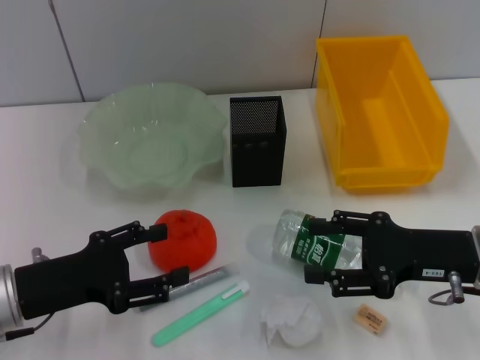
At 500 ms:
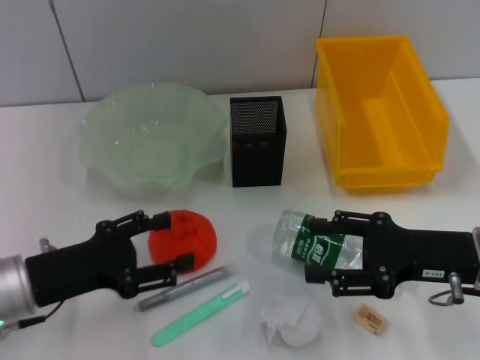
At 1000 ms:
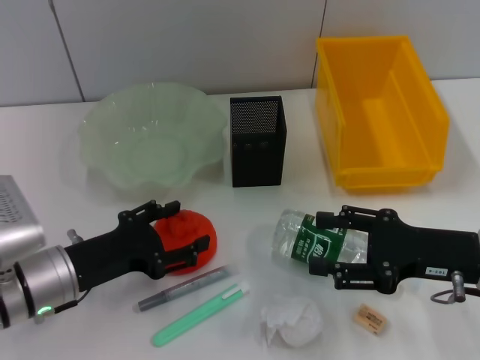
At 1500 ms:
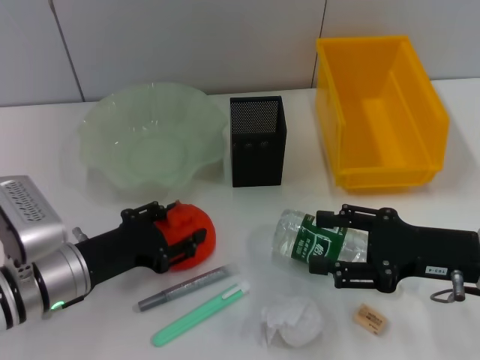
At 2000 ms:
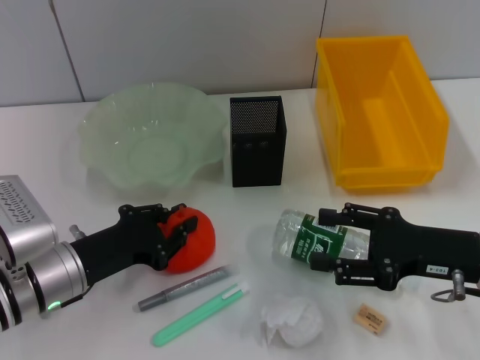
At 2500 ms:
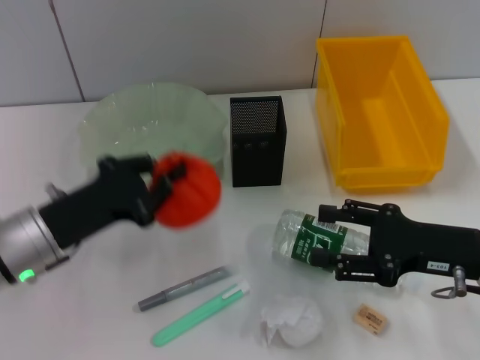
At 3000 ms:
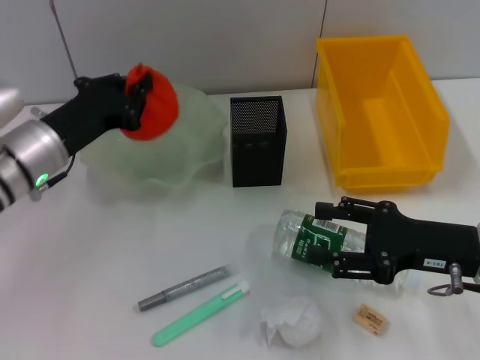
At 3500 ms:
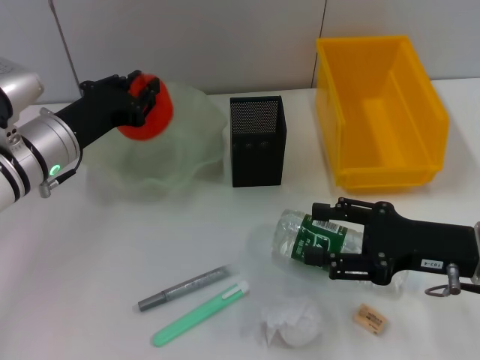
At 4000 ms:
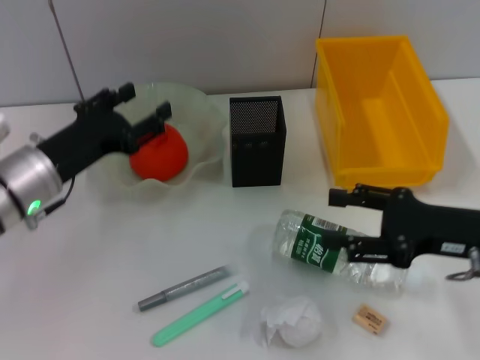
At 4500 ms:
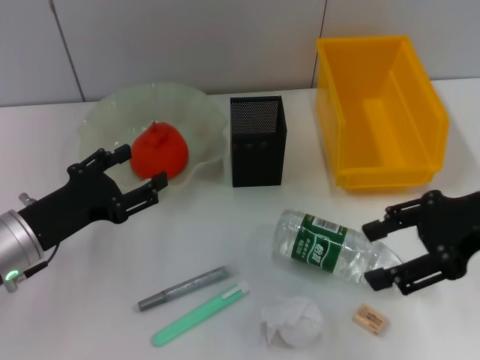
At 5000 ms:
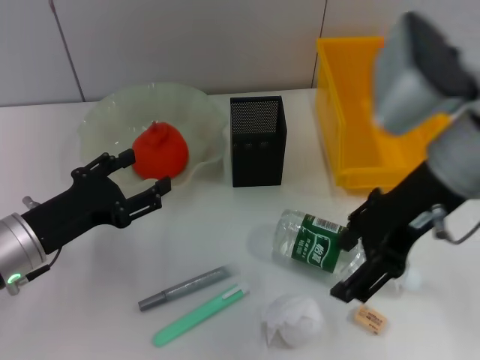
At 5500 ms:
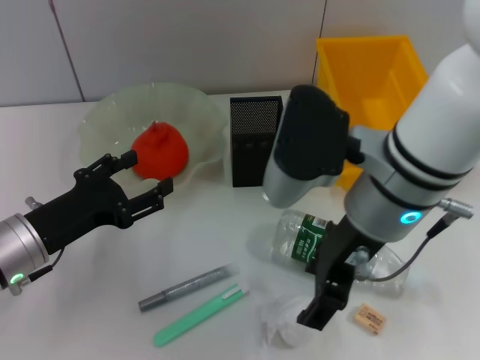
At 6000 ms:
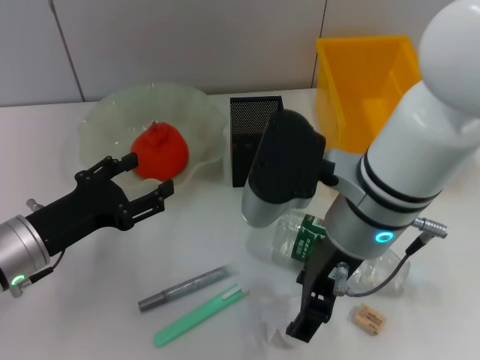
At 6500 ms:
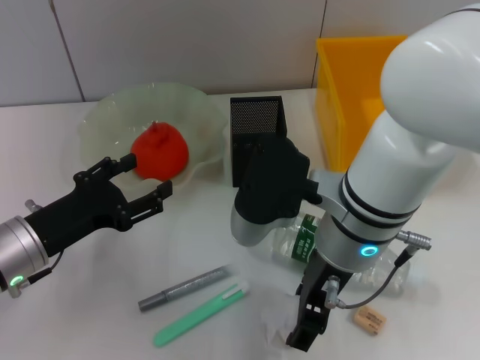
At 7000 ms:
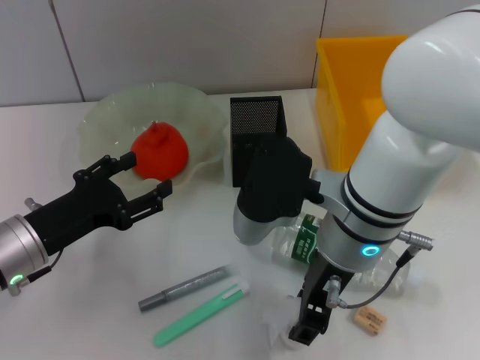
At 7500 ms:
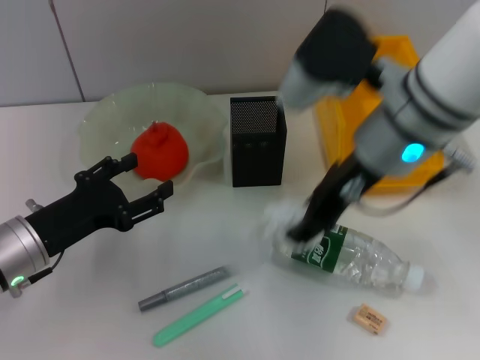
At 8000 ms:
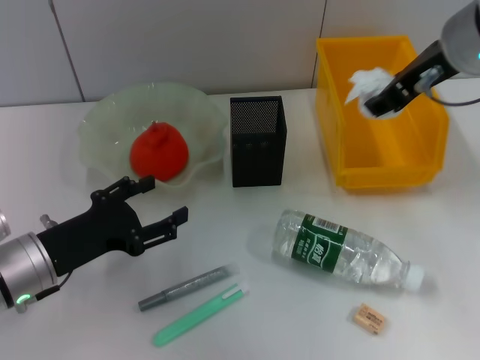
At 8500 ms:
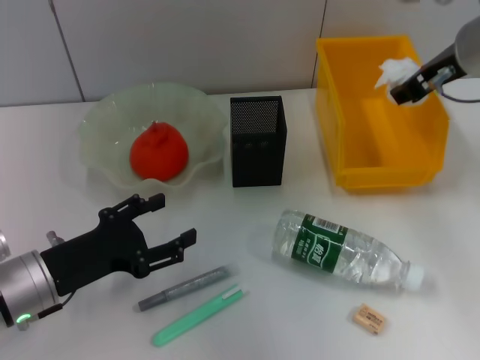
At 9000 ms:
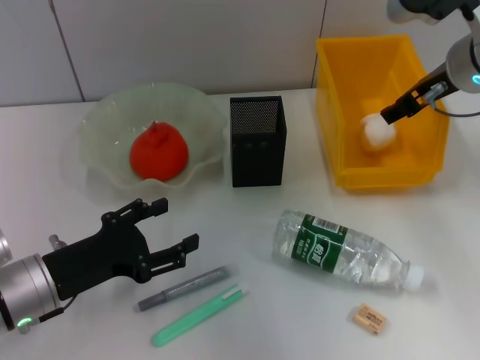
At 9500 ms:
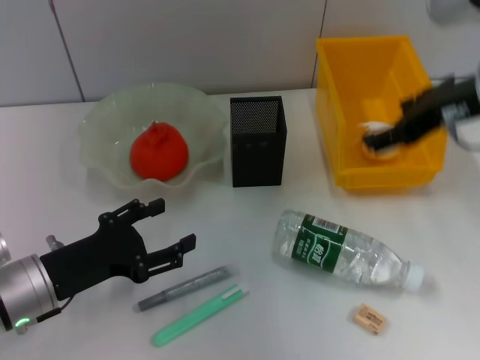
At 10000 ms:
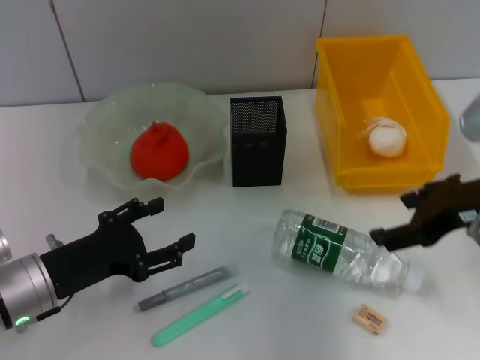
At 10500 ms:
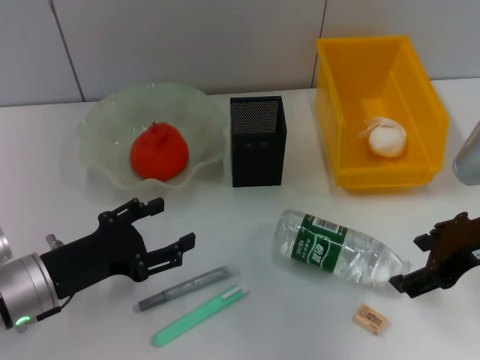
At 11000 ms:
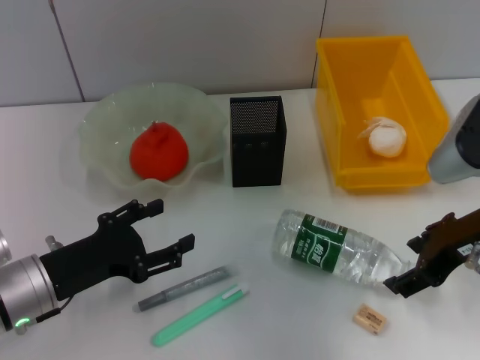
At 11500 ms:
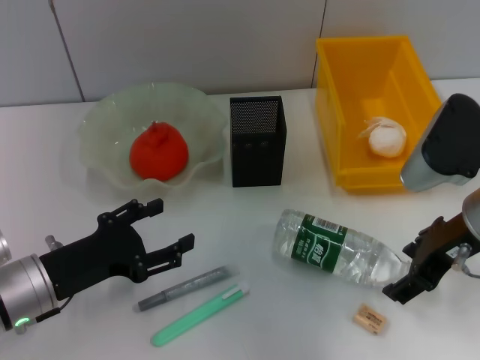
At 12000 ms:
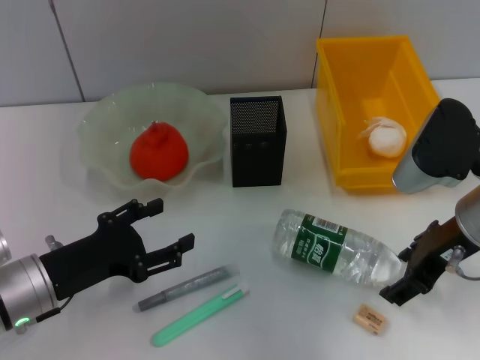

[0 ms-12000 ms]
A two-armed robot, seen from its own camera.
Step, 0 ms to 1500 ms: Grab the orange with the left hand.
Step, 2500 ms to 3500 ms: Place the orange into the fruit bowl with the left hand.
Step, 4000 ms to 6500 ms: Grab the paper ball with the right hand.
Step, 7000 ms to 8500 ms: Place the paper ball into the trash can with the right hand.
0 ms to 2000 ms: The left gripper moves approximately 5 cm, and closes up.
2000 ms to 4000 ms: The left gripper goes approximately 10 cm forward and upward.
4000 ms to 6000 ms: The right gripper moves to the left and upward, about 20 cm. The left gripper travels backward by about 5 cm, and opens.
6000 ms to 8000 ms: The right gripper shifts some 15 cm to the right, upward and forward.
8000 ms to 10000 ms: The right gripper is displaced backward and downward by approximately 15 cm, and opens up.
10000 ms to 12000 ms: The right gripper ends up approximately 5 cm from where it was.

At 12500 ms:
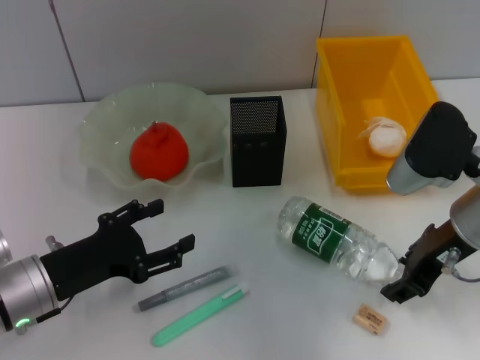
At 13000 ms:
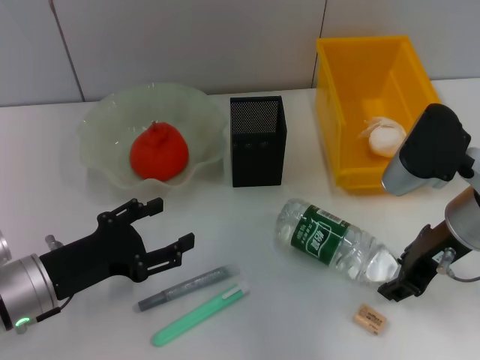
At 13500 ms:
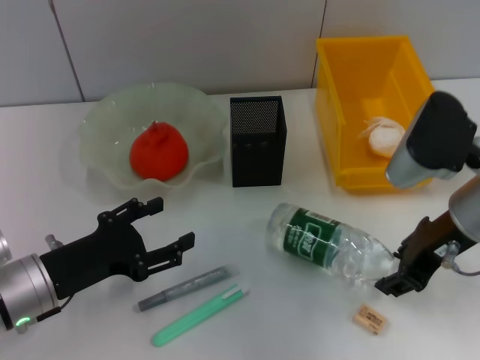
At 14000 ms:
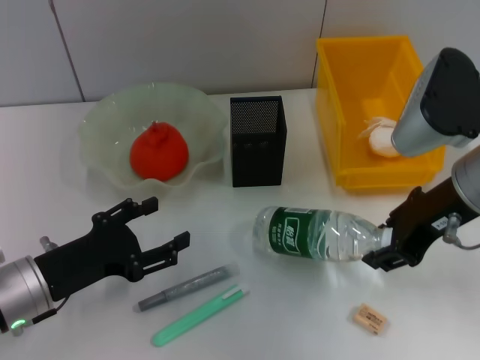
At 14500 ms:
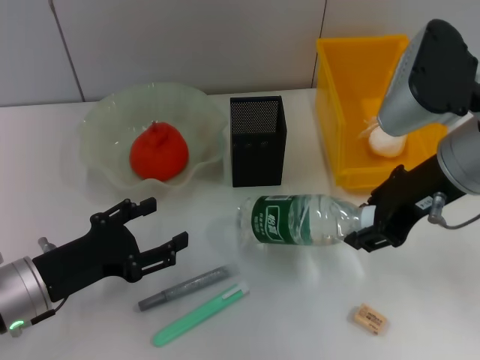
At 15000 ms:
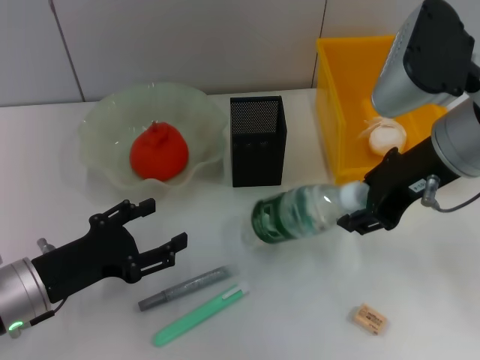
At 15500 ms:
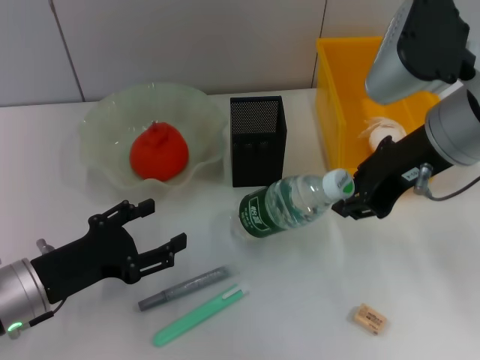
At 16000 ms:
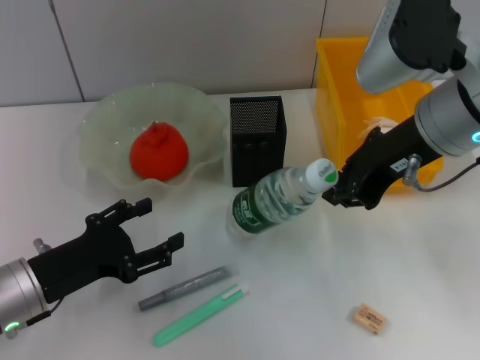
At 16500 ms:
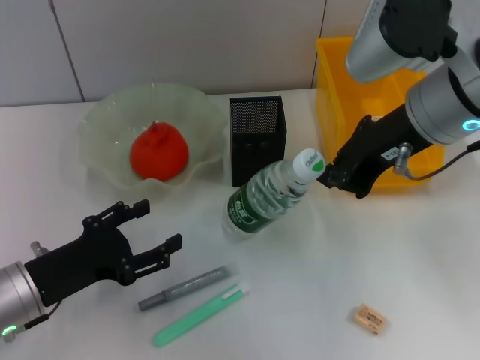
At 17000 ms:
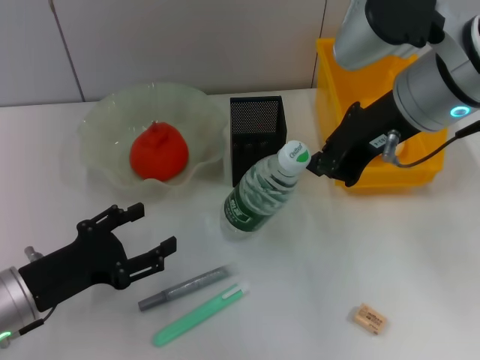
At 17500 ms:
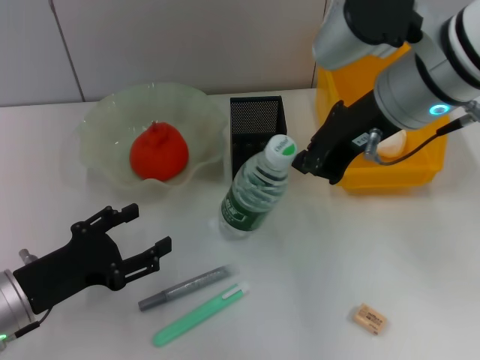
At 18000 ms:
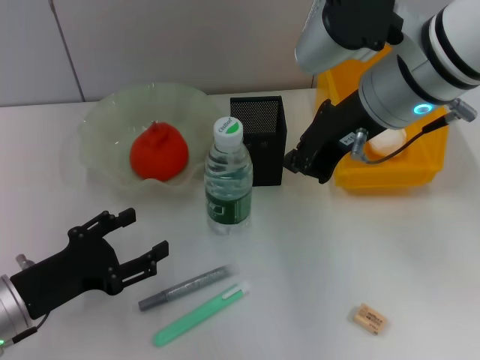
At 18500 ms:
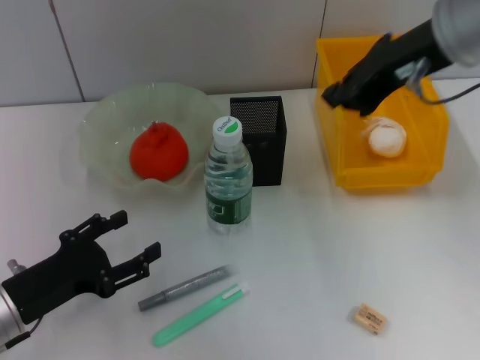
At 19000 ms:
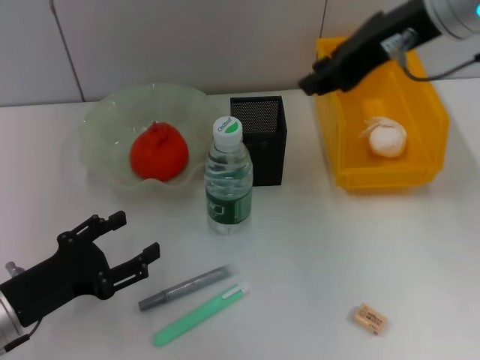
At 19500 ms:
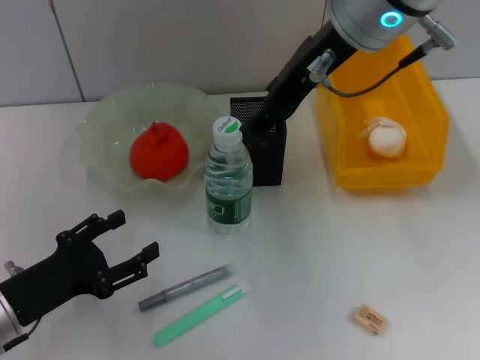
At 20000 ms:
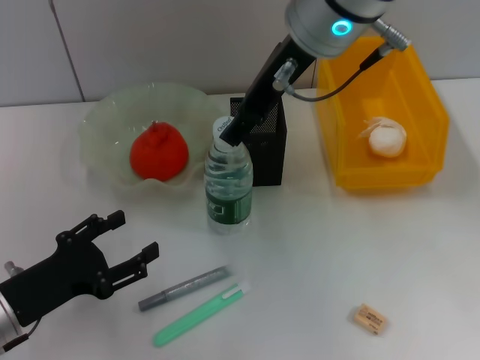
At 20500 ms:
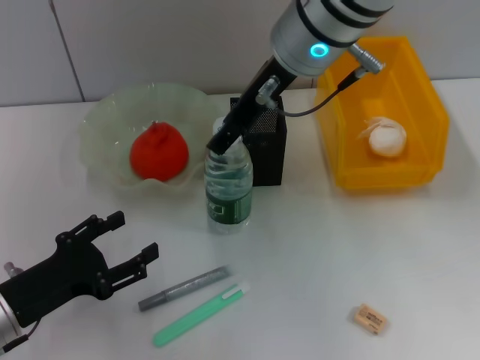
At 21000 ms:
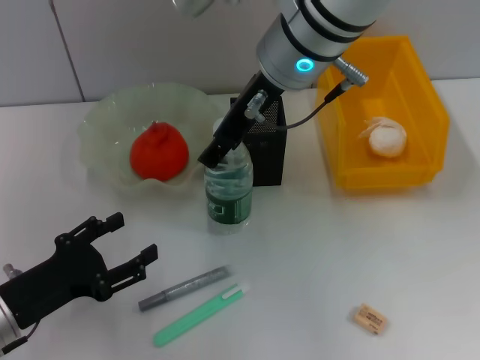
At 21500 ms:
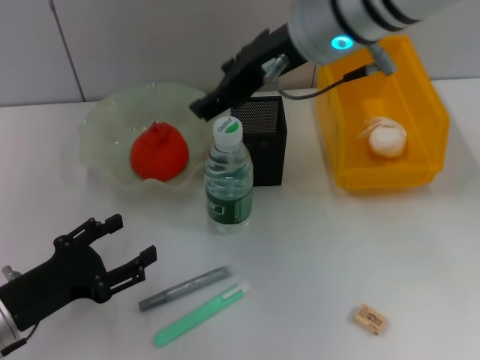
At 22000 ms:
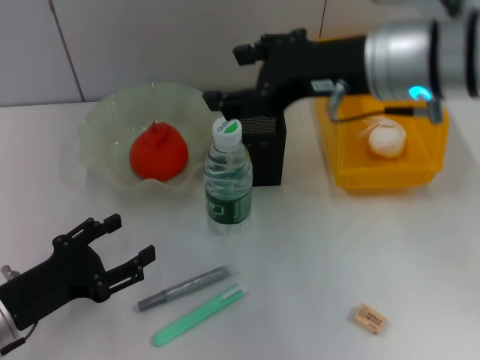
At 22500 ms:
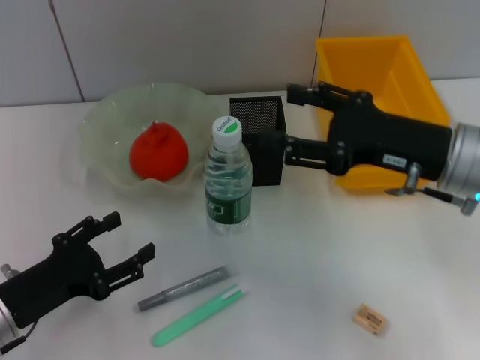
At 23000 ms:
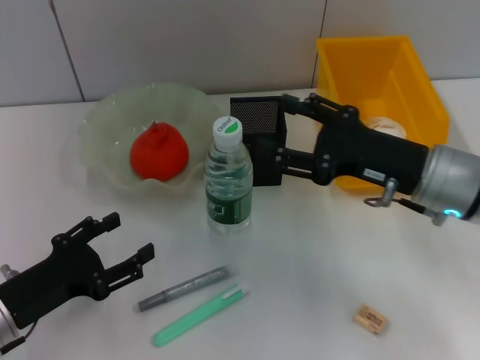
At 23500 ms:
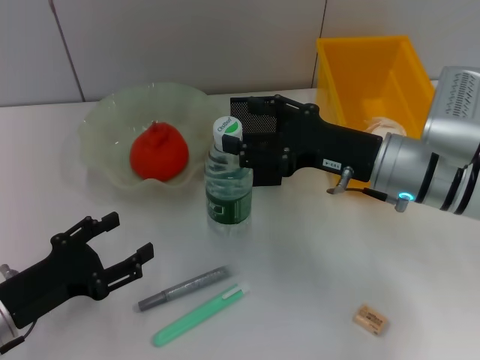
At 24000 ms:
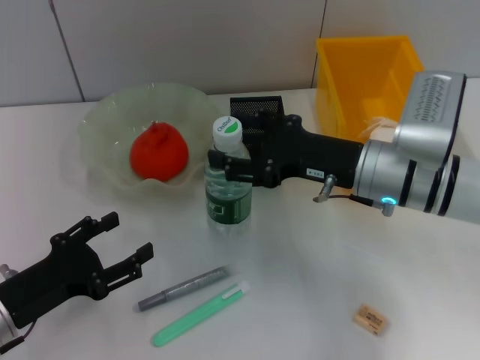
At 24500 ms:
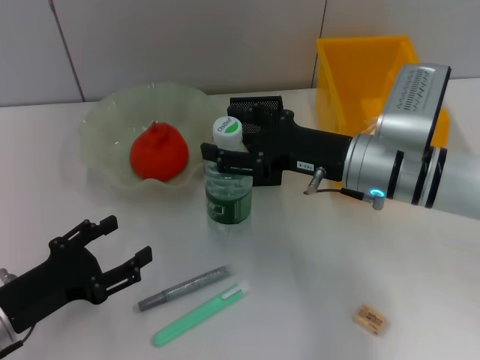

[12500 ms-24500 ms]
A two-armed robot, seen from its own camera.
12500 ms to 14500 ms: The right gripper moves upward, roughly 5 cm.
14500 ms to 16500 ms: The right gripper closes up.
16500 ms to 18500 ms: The right gripper moves upward, approximately 5 cm.
18500 ms to 20500 ms: The right gripper goes roughly 10 cm to the left, and opens.
20500 ms to 22500 ms: The right gripper moves to the right, downward and backward, roughly 20 cm.
22500 ms to 24500 ms: The right gripper moves to the left, forward and downward, approximately 10 cm.

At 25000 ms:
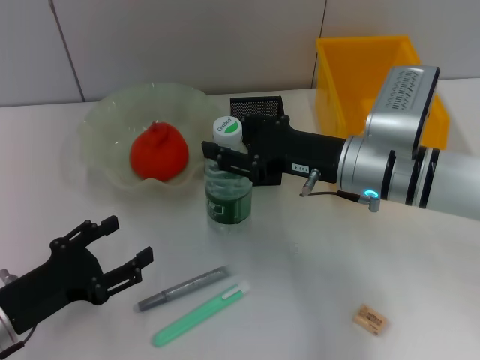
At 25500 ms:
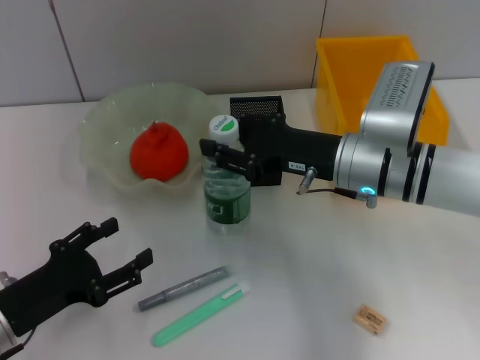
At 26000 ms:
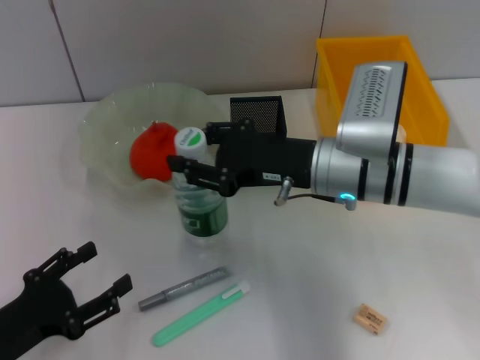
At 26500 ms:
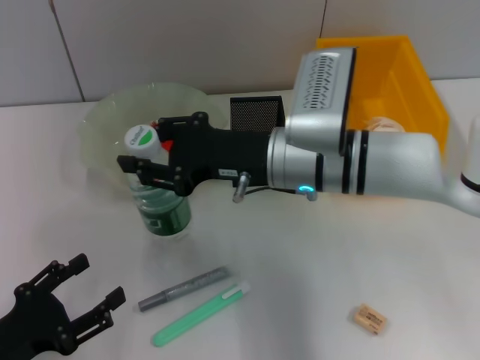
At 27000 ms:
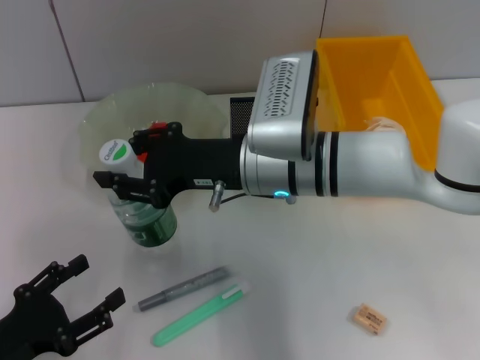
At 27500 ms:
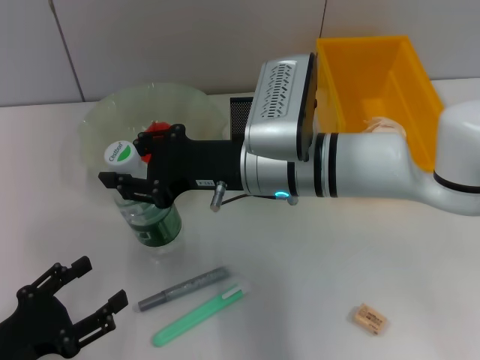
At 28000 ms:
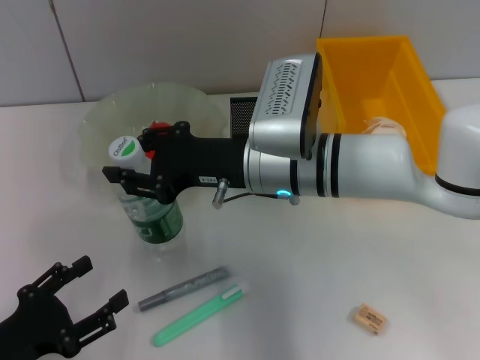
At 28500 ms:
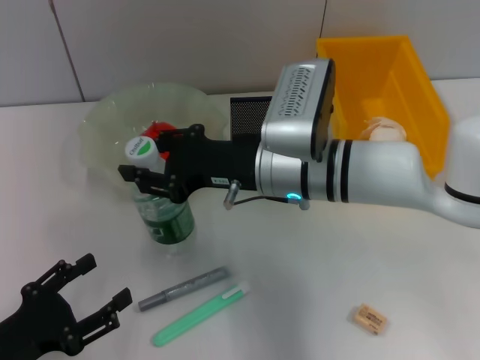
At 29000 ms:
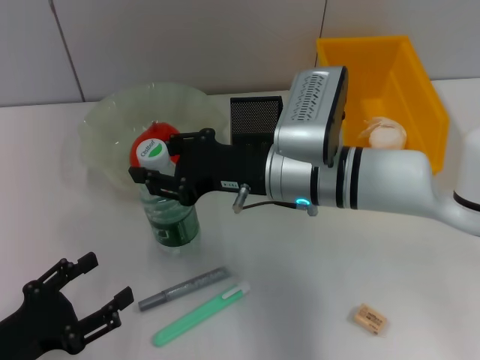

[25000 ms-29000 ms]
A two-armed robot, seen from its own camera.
25000 ms to 27000 ms: The left gripper is displaced backward by approximately 5 cm. Meanwhile the right gripper is displaced to the left by about 10 cm, and closes its fingers.
27000 ms to 29000 ms: The grippers stay close to where they were, moving slightly.
